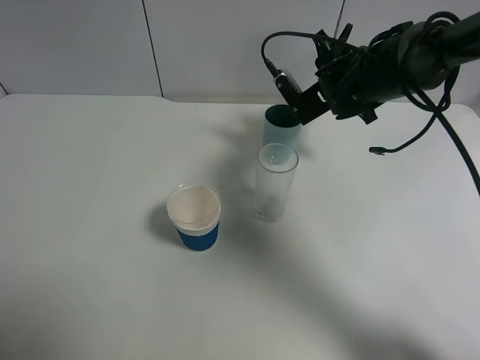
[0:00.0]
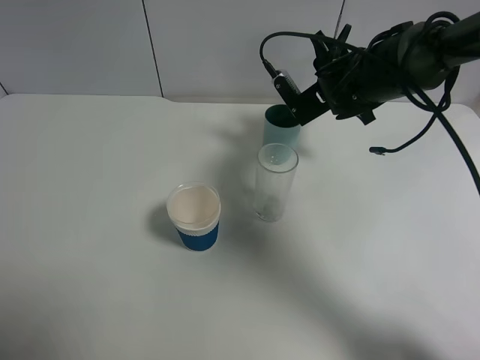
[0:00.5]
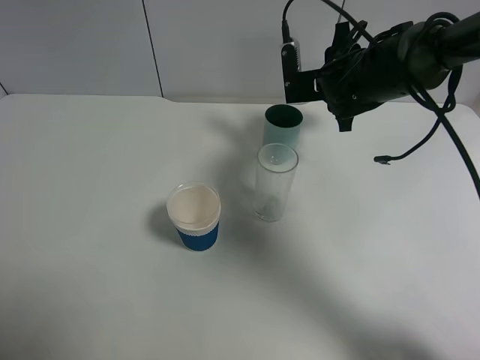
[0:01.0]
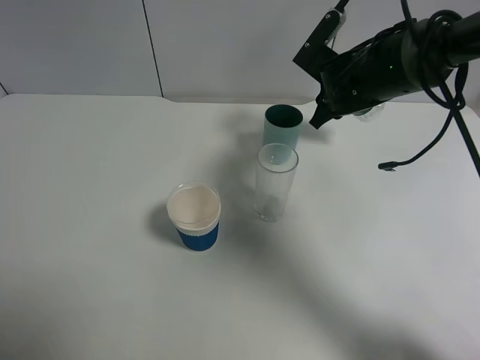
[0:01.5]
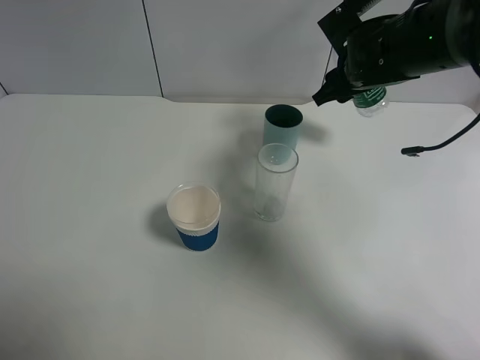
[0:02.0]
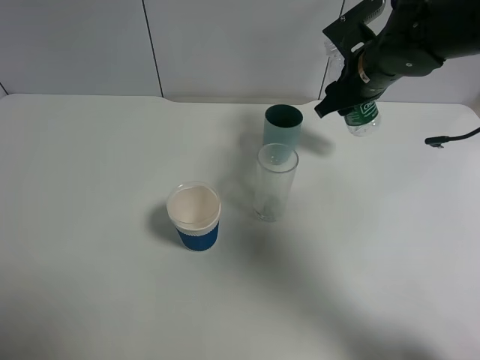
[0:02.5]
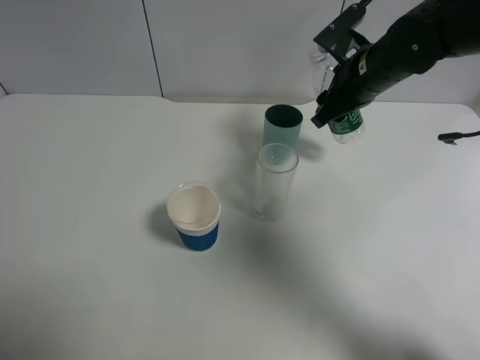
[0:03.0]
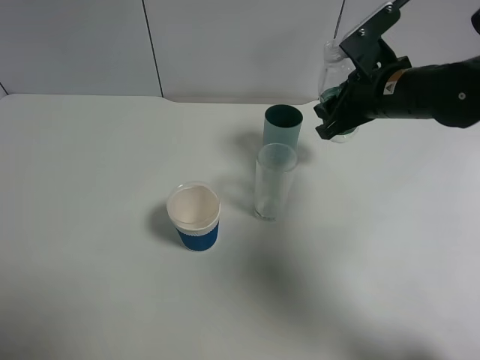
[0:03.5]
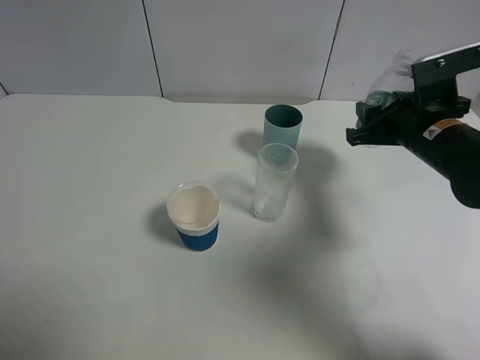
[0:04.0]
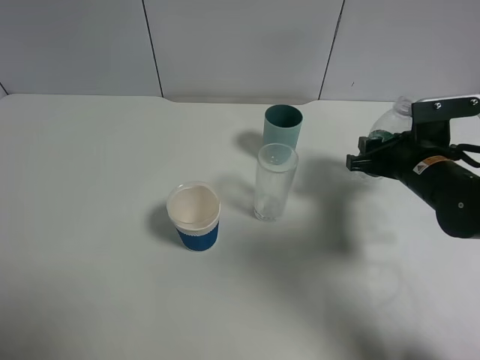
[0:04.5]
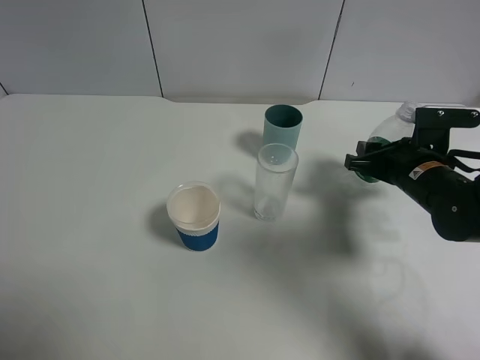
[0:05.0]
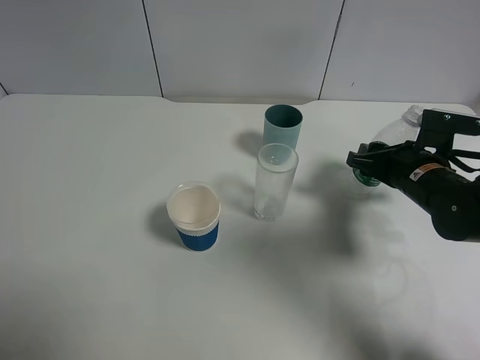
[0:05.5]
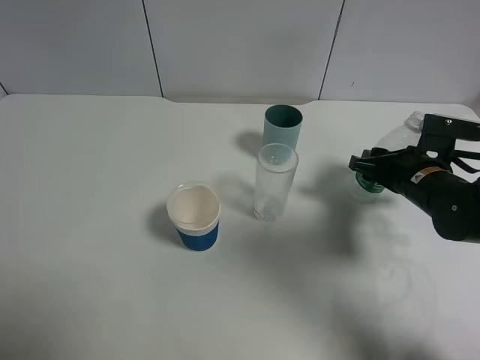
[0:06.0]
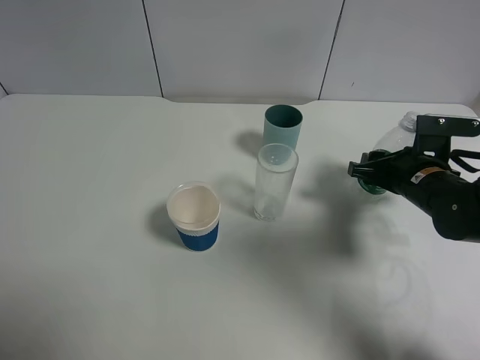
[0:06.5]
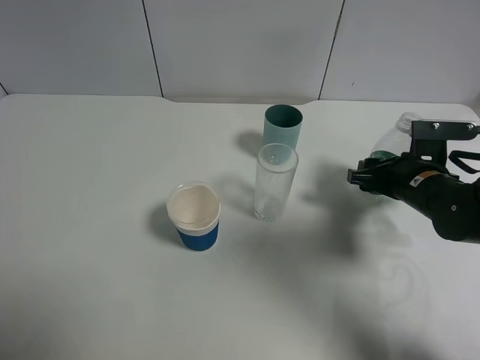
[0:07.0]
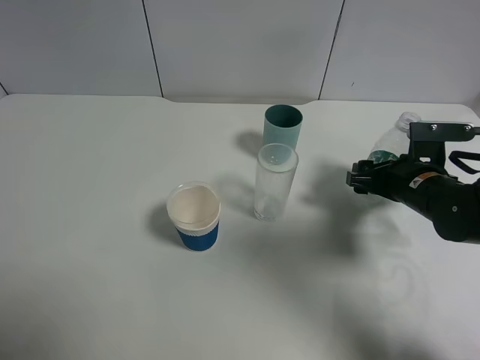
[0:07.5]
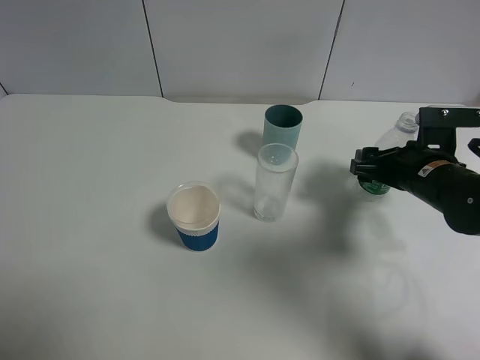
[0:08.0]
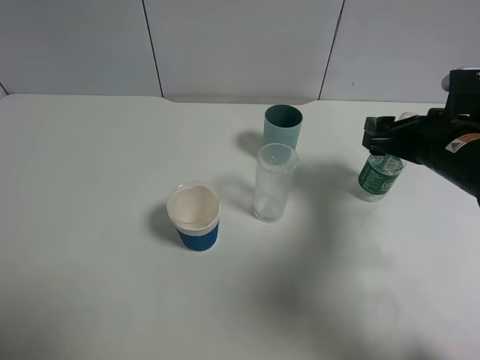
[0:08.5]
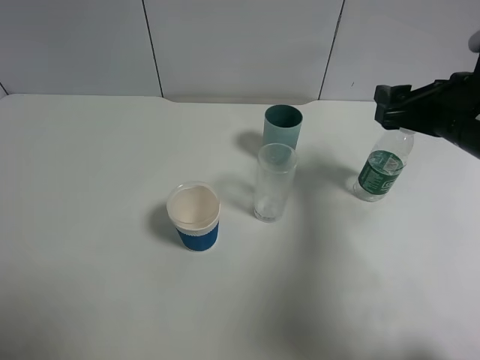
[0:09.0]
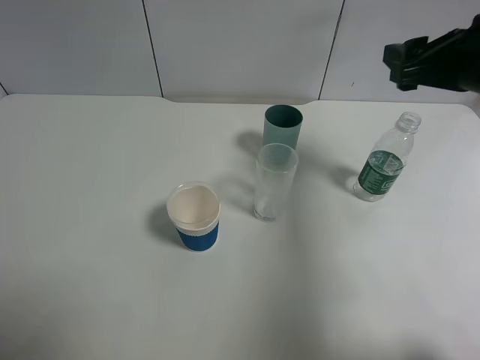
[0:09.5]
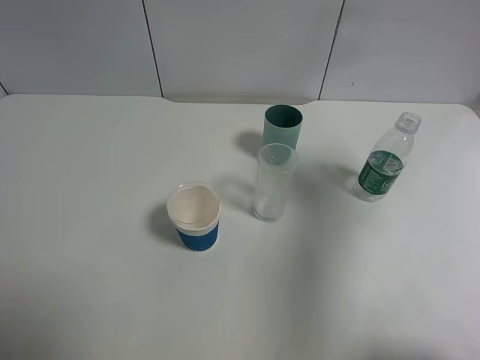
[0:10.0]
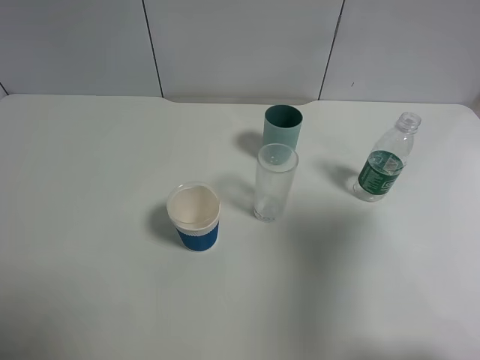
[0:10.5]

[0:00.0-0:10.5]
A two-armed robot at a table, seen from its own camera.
Task of the whole recording: use a gripper to hold the bottle of the drink and pour it into a random cup.
Step, 0:01.5 to 0:08.0: Place the mineral water bottle on the table with the right gripper.
0:02.0 to 0:04.0: The right gripper is displaced backward and to the right by approximately 15 cm.
0:04.0 to 0:06.5: The right gripper travels downward by about 5 cm.
0:06.5 to 0:08.5: The right gripper travels upward by roughly 10 cm, and opens.
0:08.5 to 0:10.5: The right gripper moves backward and upward, some 25 cm.

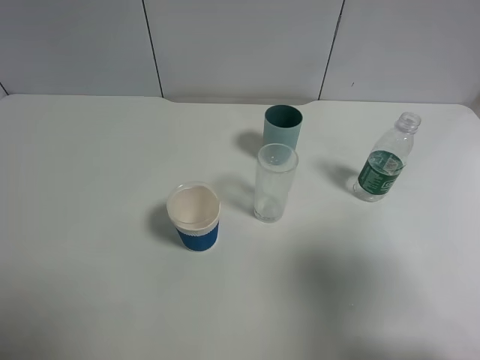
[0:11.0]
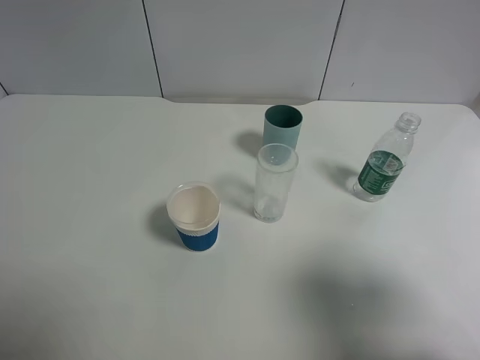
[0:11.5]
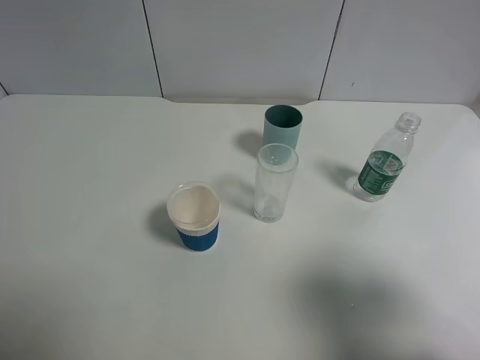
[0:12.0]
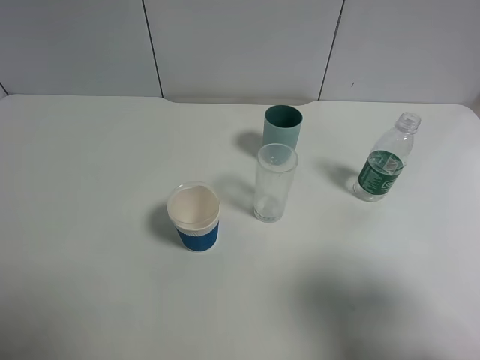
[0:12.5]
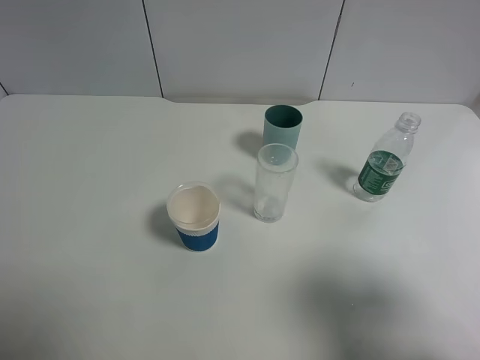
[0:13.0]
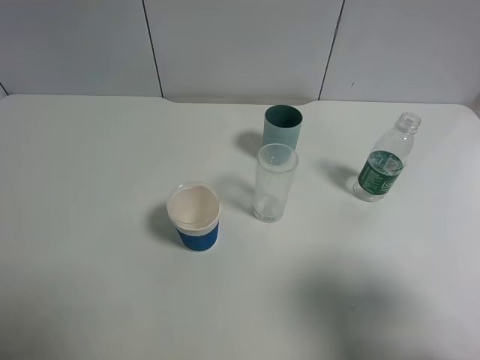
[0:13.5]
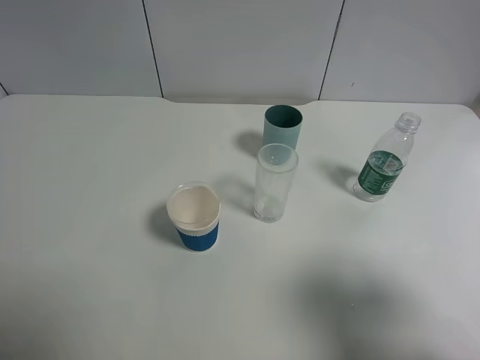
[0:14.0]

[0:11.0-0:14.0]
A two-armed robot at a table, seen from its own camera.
Task of the whole recording: use a gripper to hold the bottle of the drink and pour it into a random cup.
0:11.0 to 0:12.5: The grippers move only a little.
0:12.5 to 0:14.0: The two grippers keep their place.

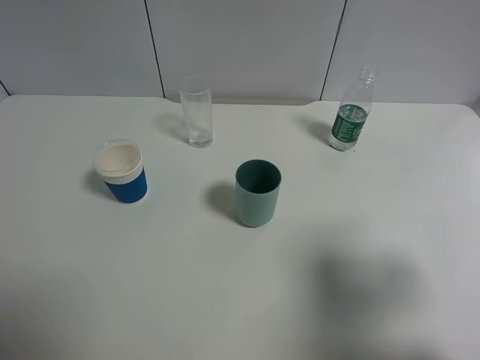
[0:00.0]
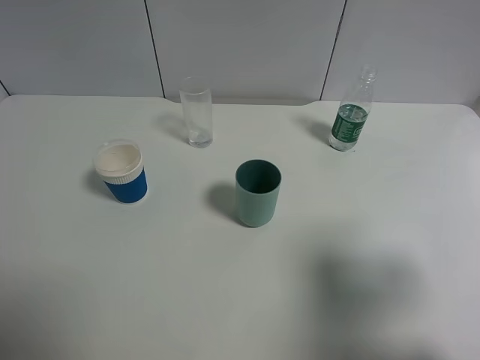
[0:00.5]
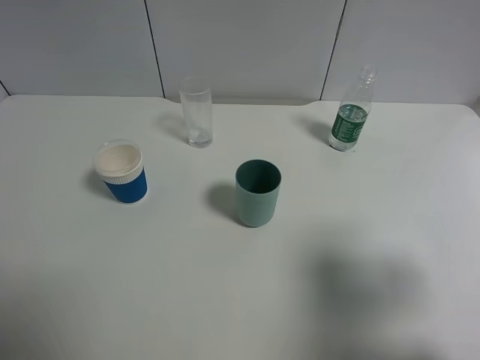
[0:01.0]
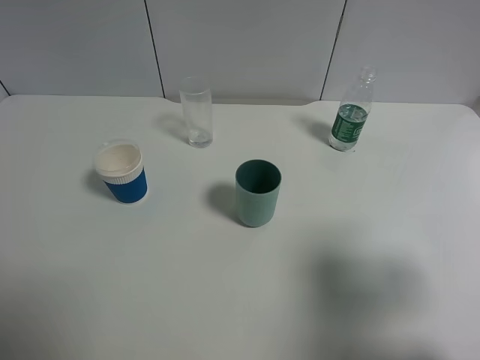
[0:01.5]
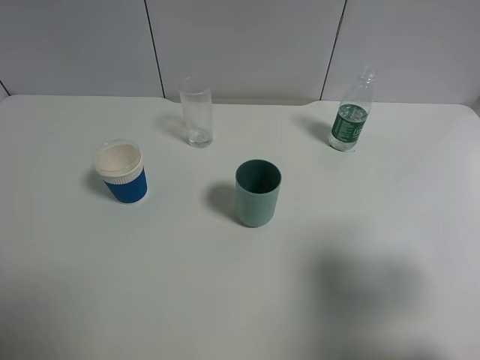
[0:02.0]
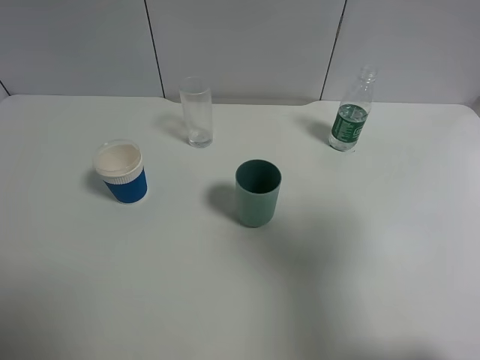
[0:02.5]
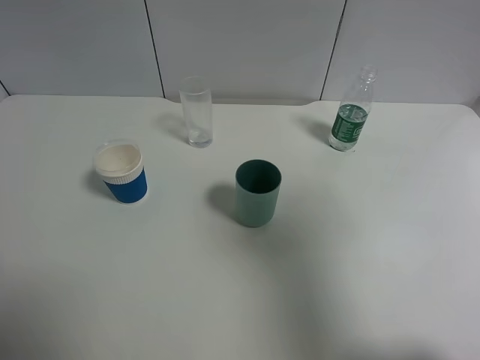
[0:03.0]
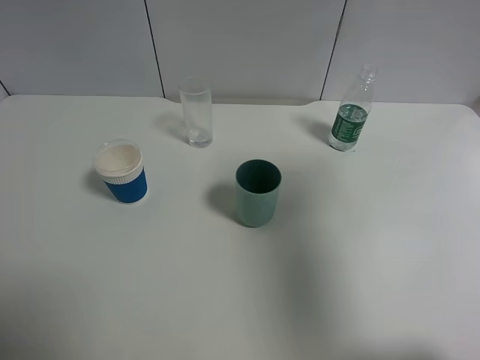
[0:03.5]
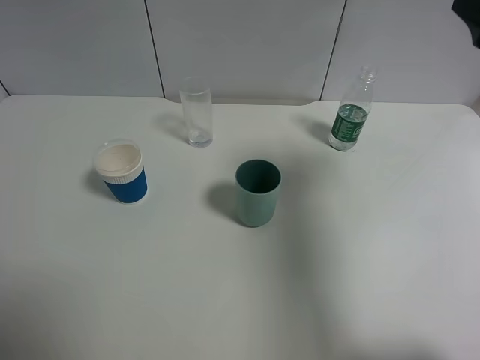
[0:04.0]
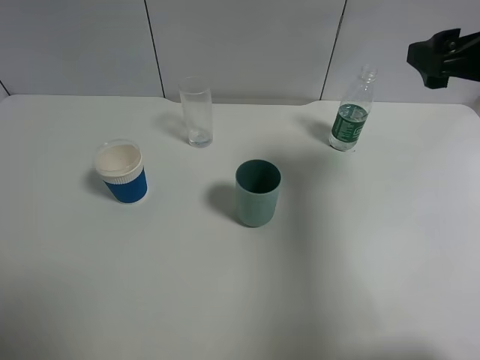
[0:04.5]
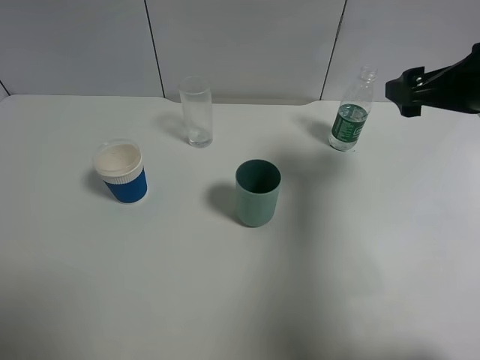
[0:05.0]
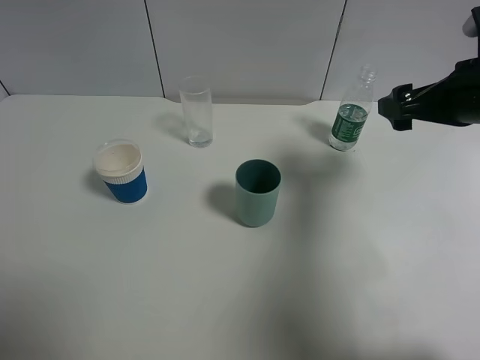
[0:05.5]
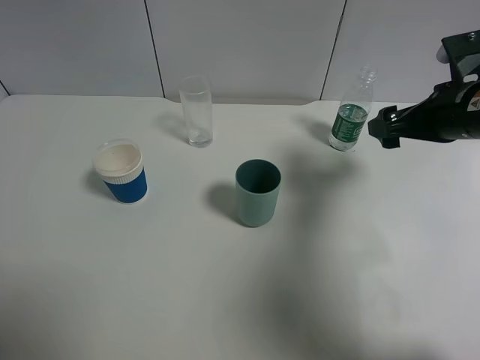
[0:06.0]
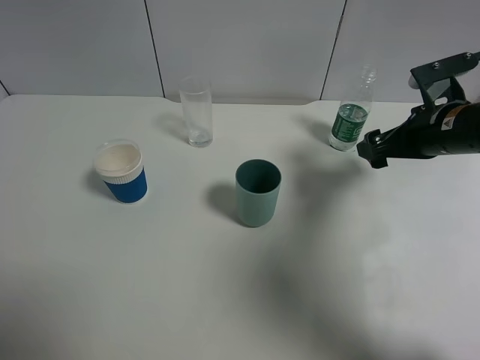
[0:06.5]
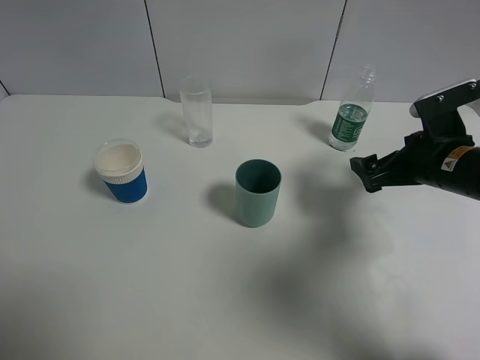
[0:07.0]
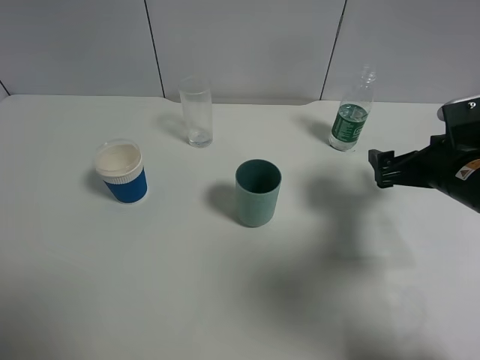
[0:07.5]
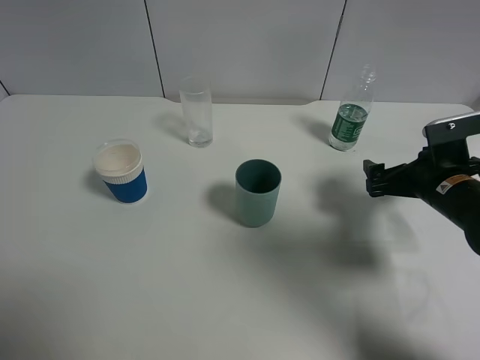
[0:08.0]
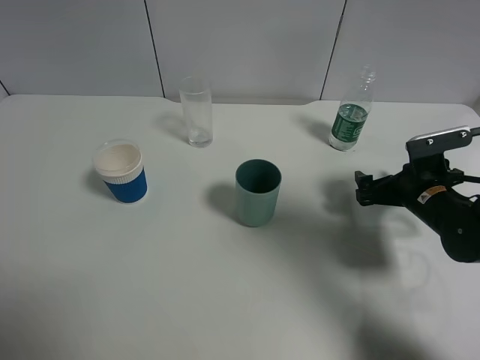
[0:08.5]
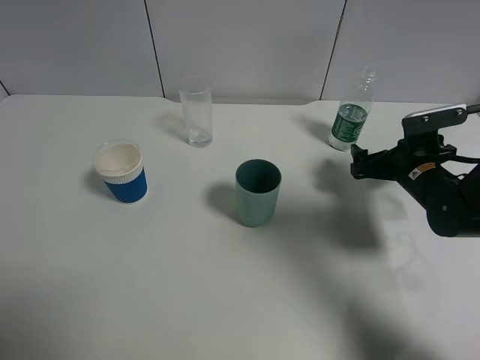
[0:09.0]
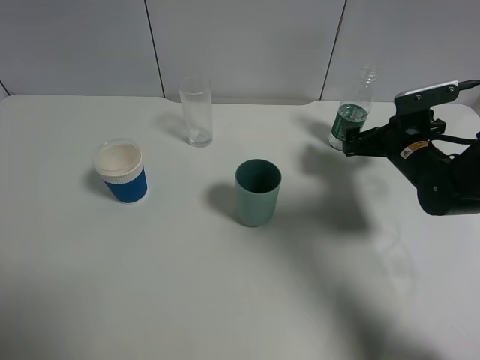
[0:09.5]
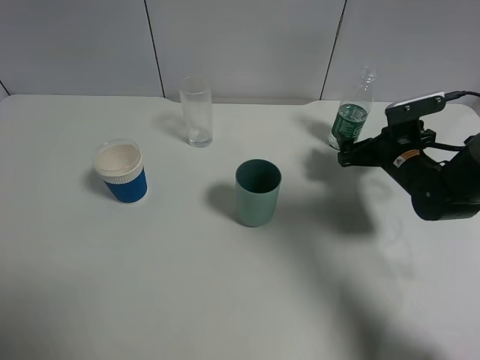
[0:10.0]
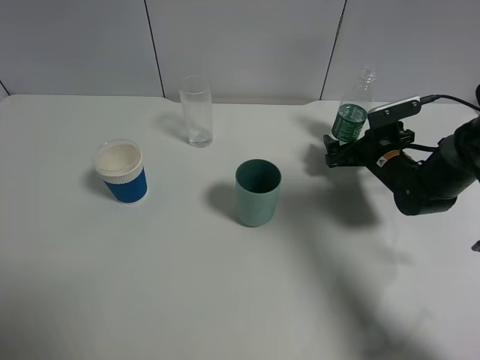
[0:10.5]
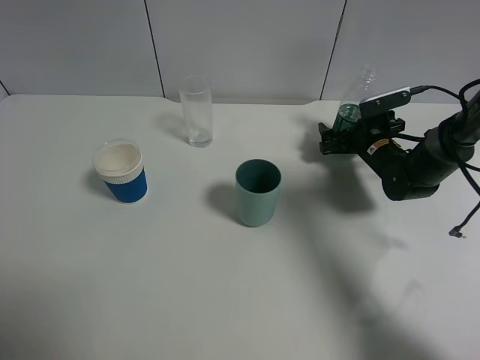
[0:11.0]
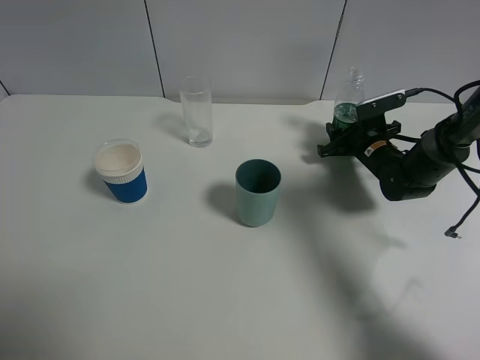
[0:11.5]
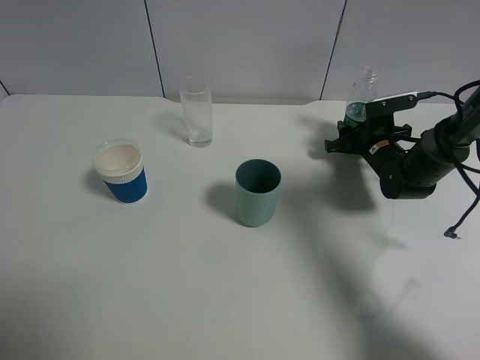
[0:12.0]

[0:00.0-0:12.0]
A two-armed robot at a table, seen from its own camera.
Task of the whole recording: use a gripper to hold the bottle of the drink and pour it into a random cup.
0:00.0 to 0:02.0: Both grippers stay put.
0:02.0 to 0:04.0: The right gripper heads forward, covering some 15 cm.
0:04.0 to 0:06.0: The right gripper shifts some 15 cm downward and forward.
0:06.0 to 0:08.0: The right gripper shifts about 10 cm downward.
0:08.0 to 0:10.0: The right gripper travels forward by approximately 10 cm.
0:10.0 to 0:12.0: The right gripper heads forward, covering roughly 5 cm, and closes up.
